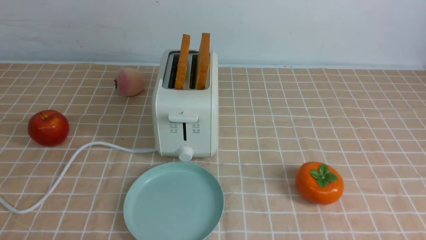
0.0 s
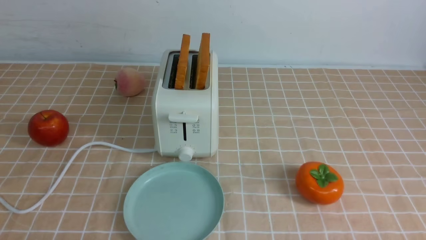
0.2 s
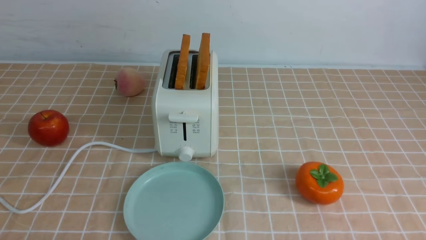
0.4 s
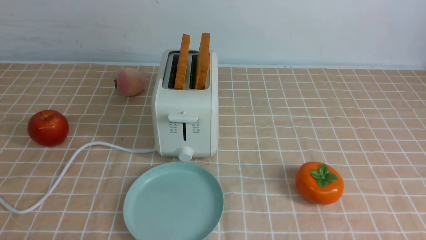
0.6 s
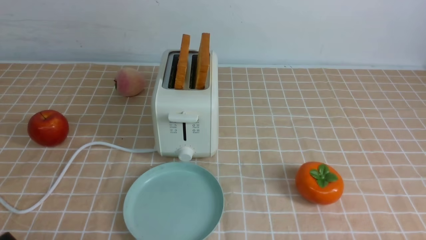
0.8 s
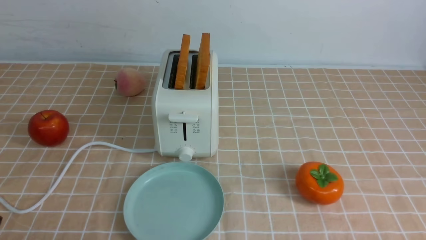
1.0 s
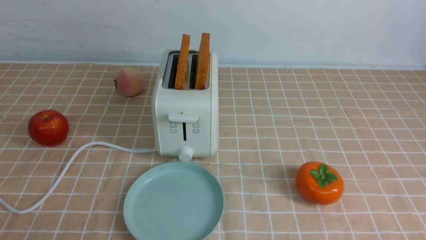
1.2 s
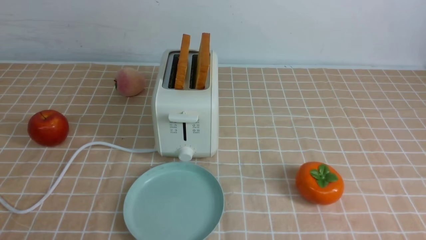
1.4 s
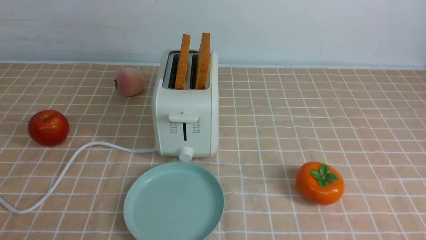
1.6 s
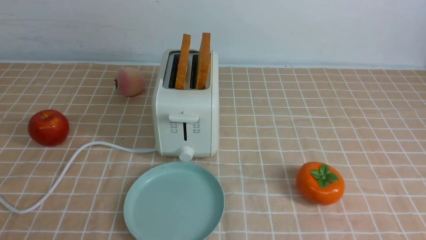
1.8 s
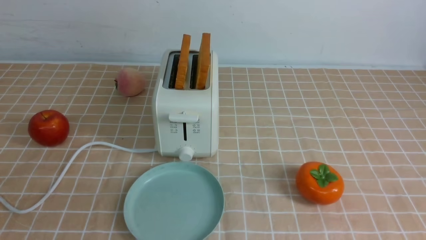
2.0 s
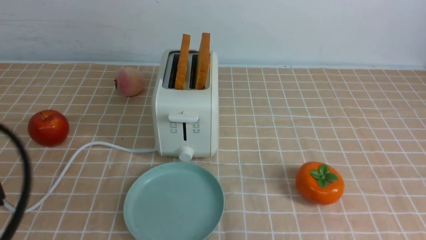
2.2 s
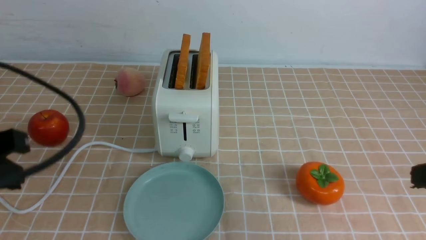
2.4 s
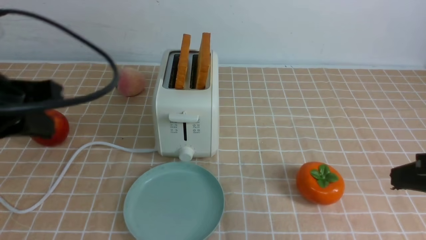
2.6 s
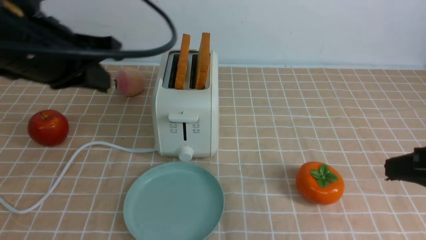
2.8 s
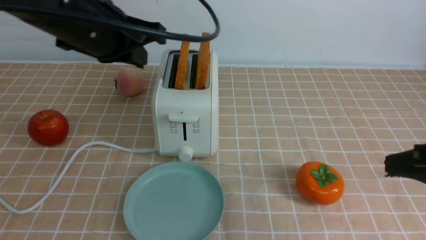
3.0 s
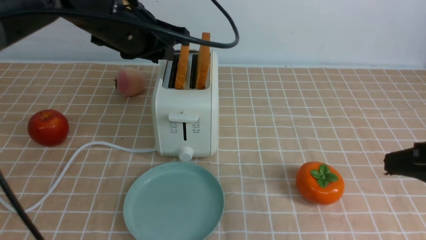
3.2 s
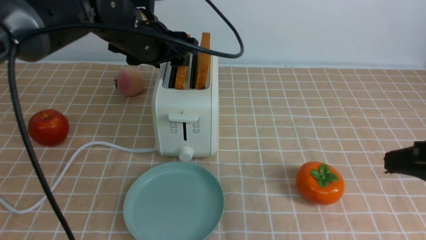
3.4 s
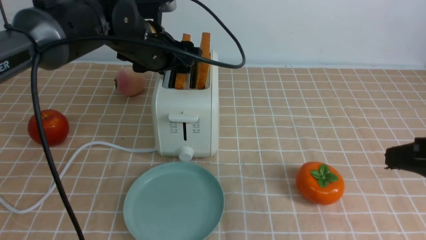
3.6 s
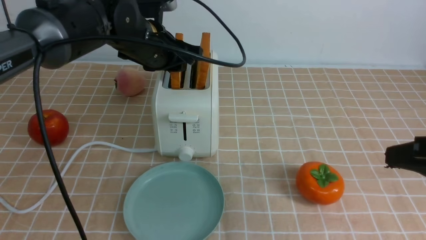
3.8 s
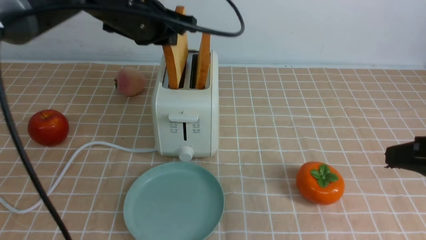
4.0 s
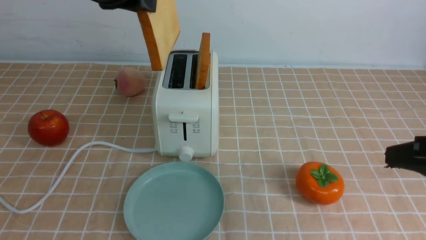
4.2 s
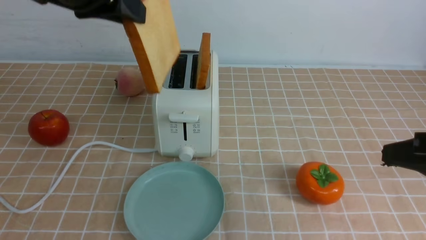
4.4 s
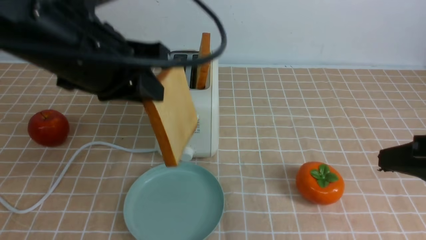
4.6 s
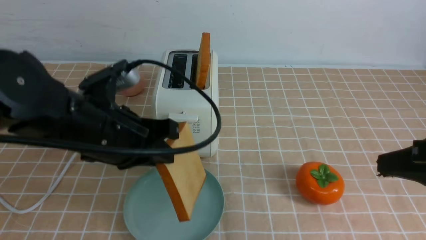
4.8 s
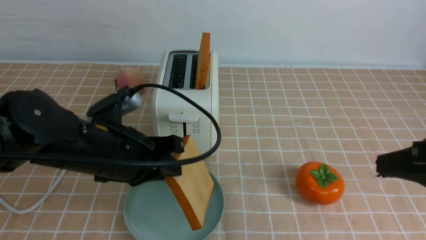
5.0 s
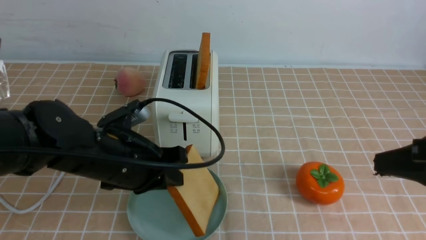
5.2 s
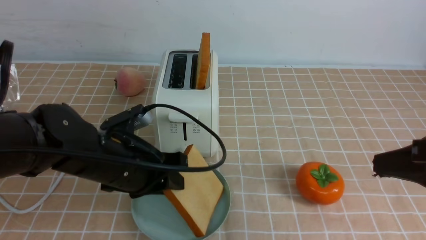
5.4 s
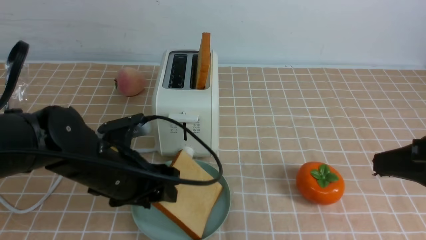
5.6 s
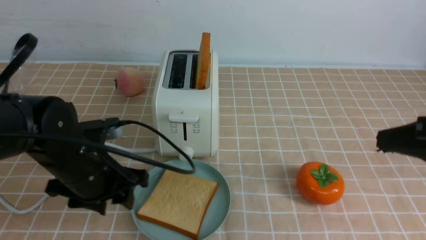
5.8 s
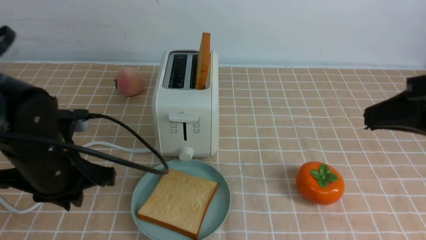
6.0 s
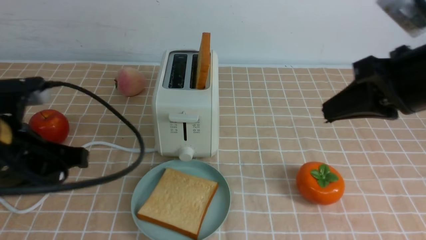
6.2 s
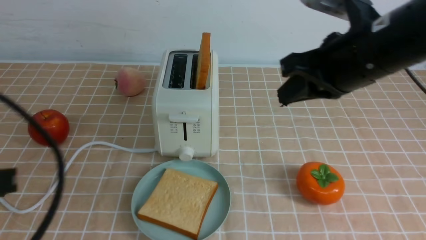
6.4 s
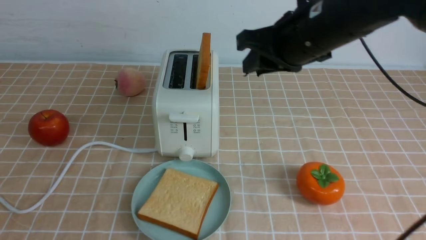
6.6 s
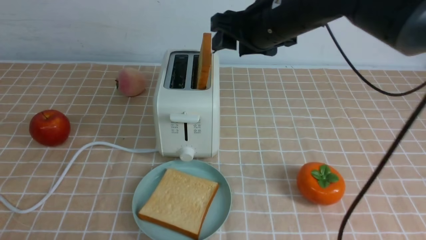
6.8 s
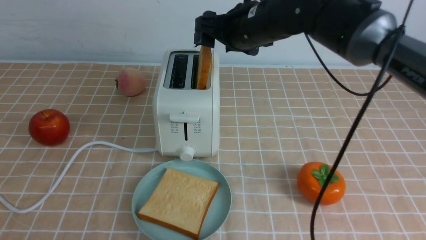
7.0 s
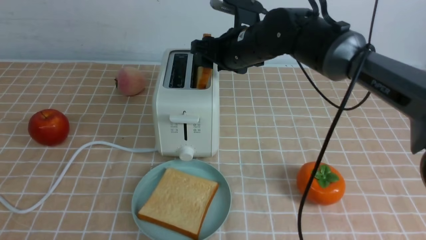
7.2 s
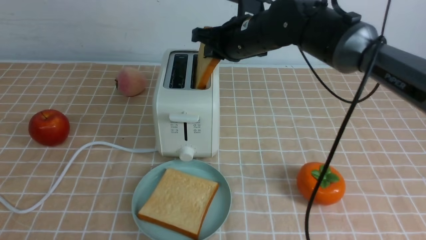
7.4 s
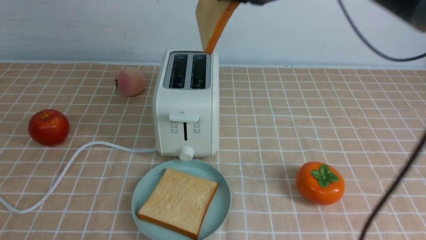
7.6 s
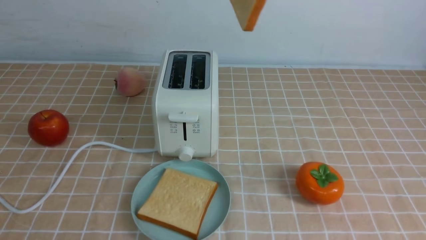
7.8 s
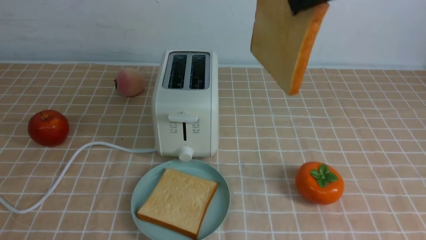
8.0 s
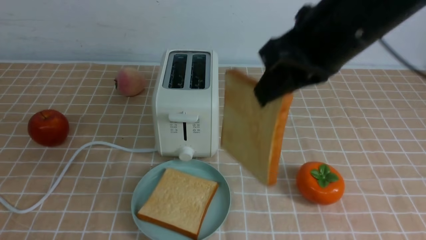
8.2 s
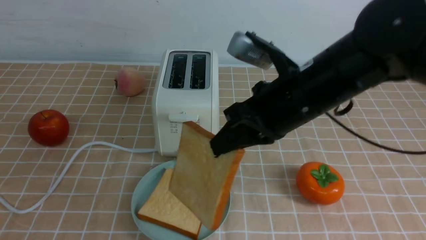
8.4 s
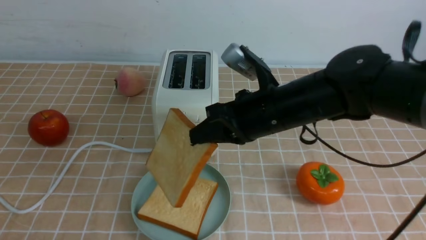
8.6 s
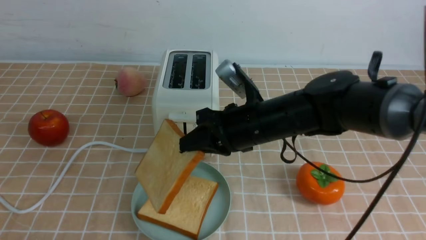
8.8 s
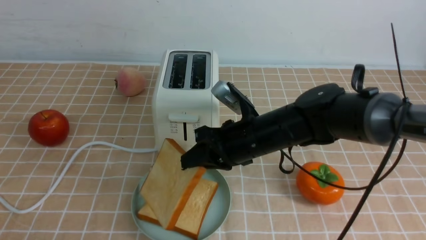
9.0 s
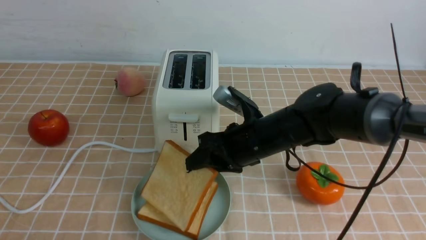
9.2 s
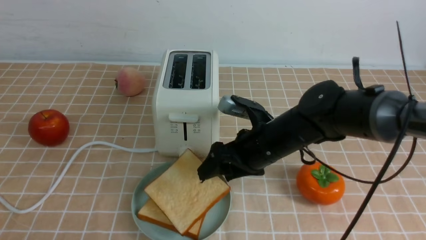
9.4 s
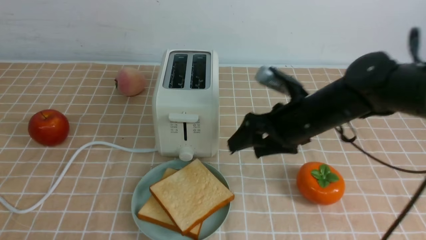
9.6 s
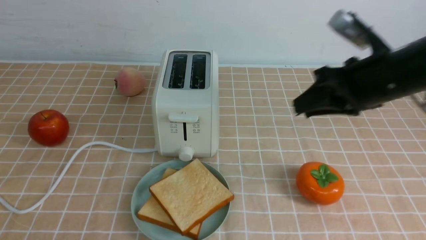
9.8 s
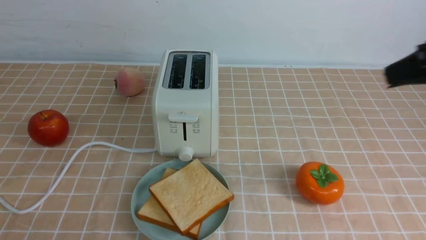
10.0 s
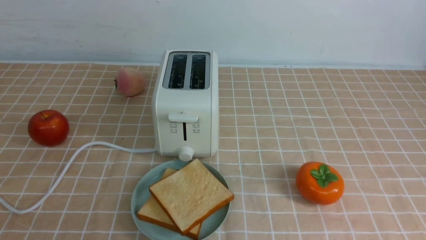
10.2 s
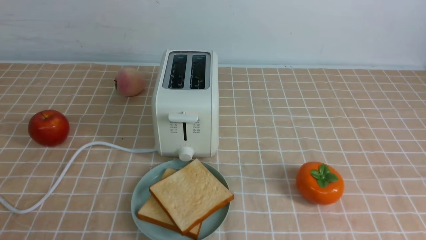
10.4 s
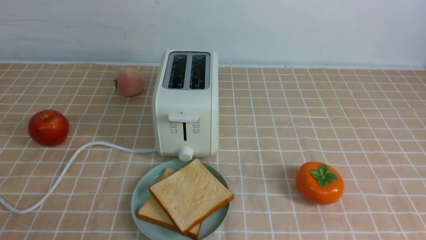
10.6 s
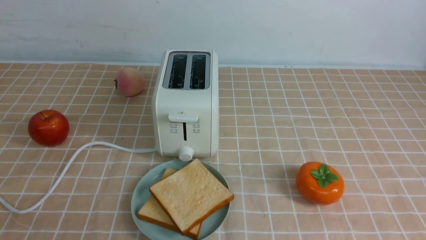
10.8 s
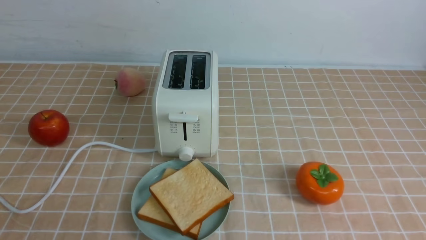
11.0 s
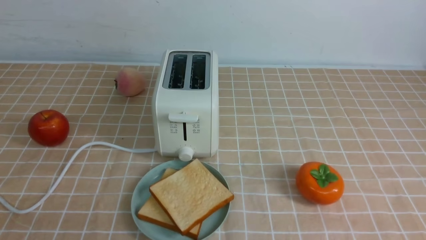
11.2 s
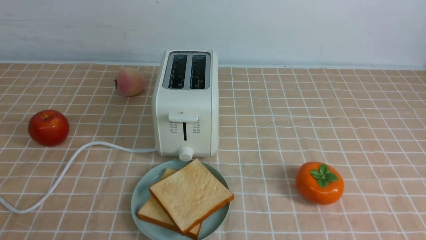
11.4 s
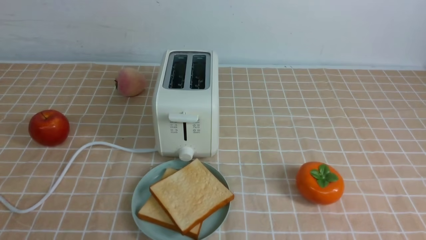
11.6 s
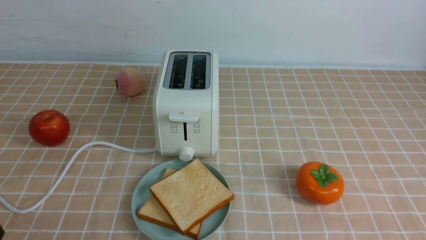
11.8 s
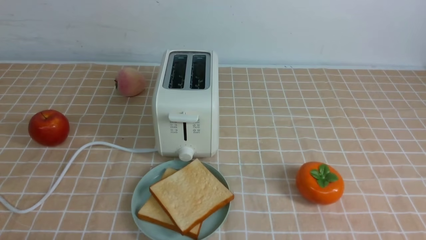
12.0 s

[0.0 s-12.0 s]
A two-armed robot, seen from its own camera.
Task of the whole recording: take toasted bread from bread machine on light coffee tablecloth place on plate.
Step, 0.0 to 4.0 s: use the left arm to take out a slice of bread.
Step, 4.2 to 5.8 s: use the left arm to put a slice of bread into the empty plate.
Step, 6.0 to 7.4 s: use the right arm to take out a slice of bread.
Step, 7.6 to 9.4 s: use the right arm to put a slice of bread into the plate.
1.6 to 3.0 s: The left gripper moves forward, upward and to the right, roughly 35 cm. Meanwhile the right gripper shifts about 15 cm upward and forward, and closes up.
3.0 to 4.4 s: The left gripper reaches some 10 cm forward, then returns, and opens, then closes once more.
4.4 to 6.0 s: The left gripper is displaced downward by roughly 15 cm, and opens, then closes once more. Meanwhile the right gripper moves some 5 cm.
6.0 to 7.6 s: The right gripper travels forward, to the left and upward by approximately 25 cm, and opens, then closes once more, while the left gripper travels backward by some 25 cm, and closes its fingers.
7.6 to 9.0 s: The right gripper goes some 20 cm downward.
9.0 to 10.4 s: The right gripper shifts about 40 cm backward, to the right and upward, and closes up.

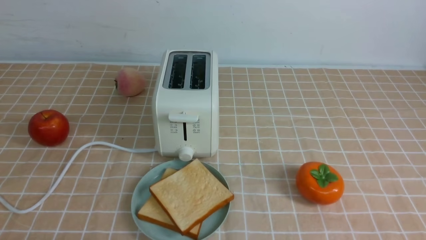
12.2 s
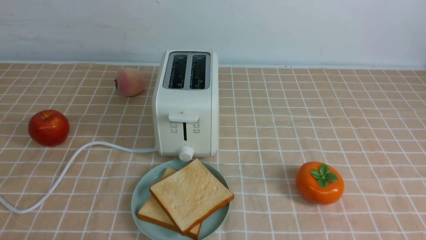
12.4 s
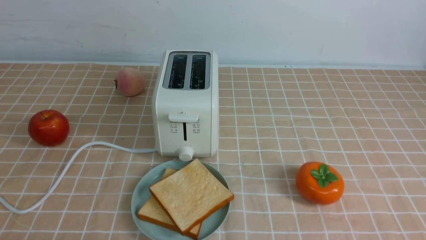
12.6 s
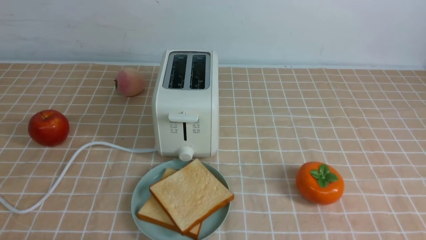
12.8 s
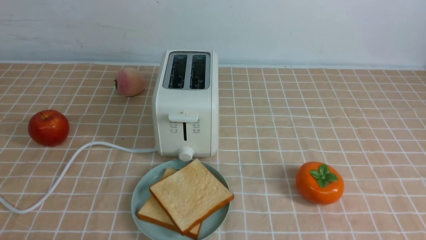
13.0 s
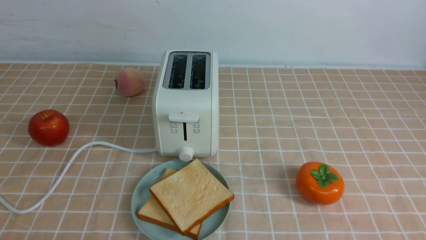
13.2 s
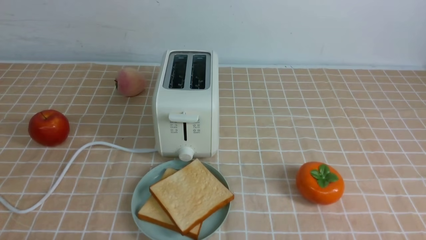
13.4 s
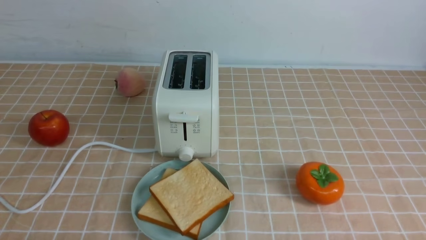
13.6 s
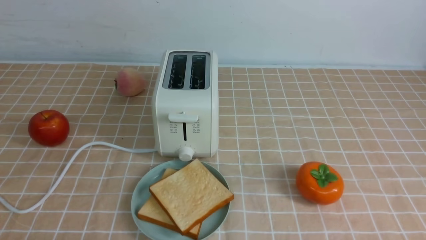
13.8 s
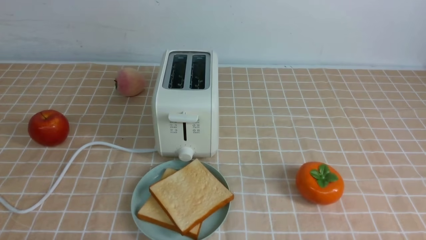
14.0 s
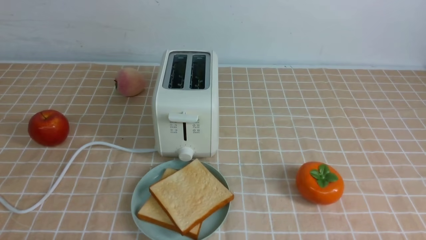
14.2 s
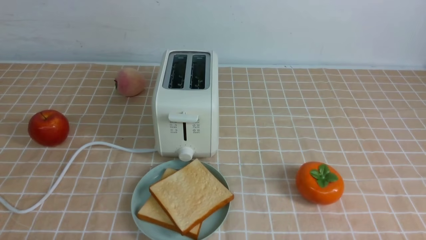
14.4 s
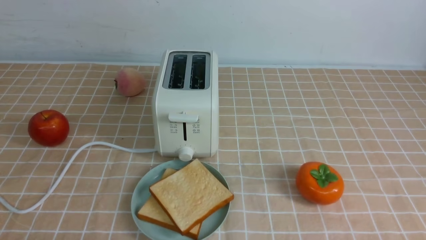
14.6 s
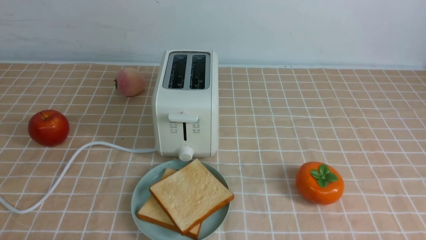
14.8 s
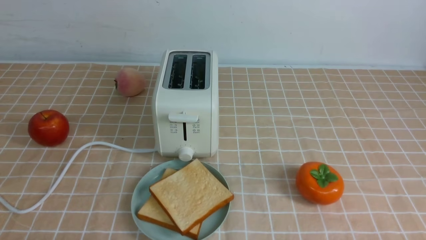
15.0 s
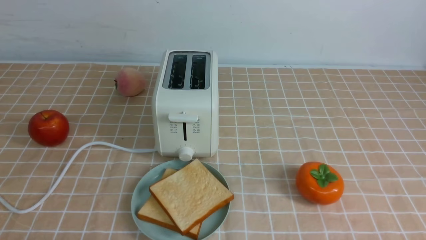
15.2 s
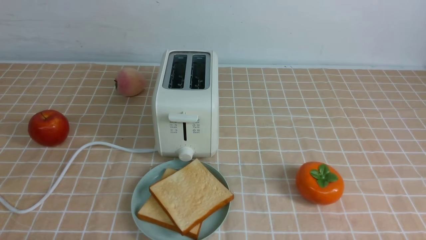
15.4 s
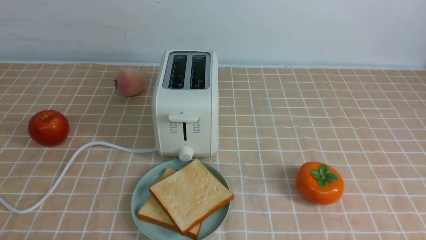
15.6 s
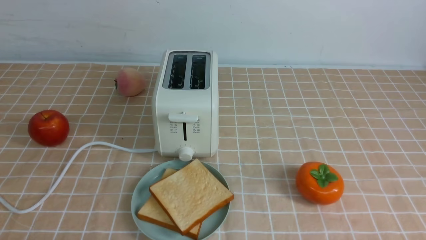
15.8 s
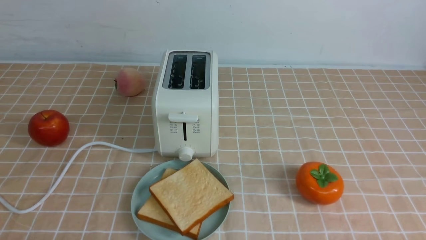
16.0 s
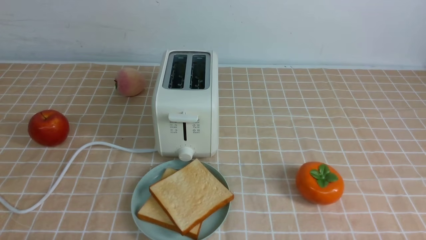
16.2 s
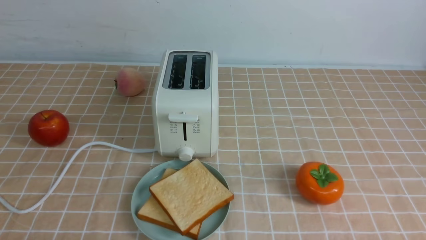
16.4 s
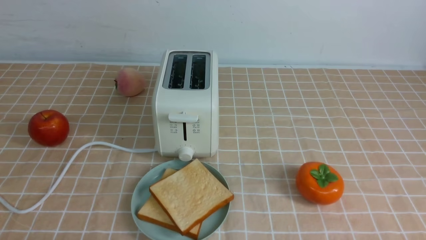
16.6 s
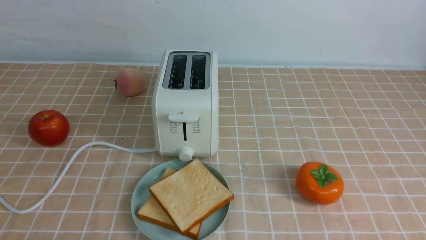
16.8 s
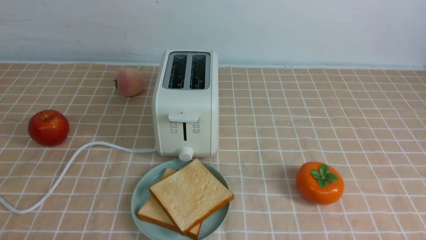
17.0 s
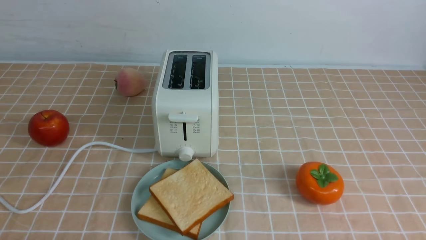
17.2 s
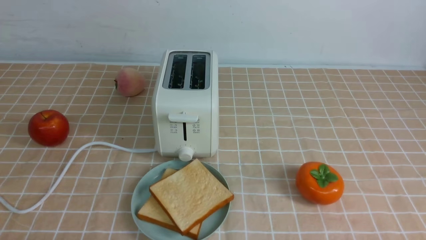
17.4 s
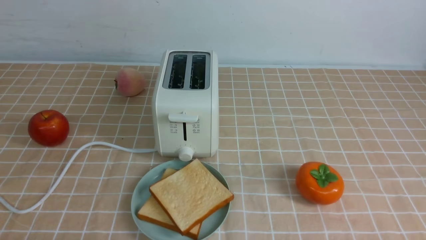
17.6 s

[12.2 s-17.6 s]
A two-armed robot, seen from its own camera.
Task of the whole recording: take toasted bread from bread machine on light coffee tablecloth place on plate.
15.0 to 17.6 s: Both grippers stay put.
